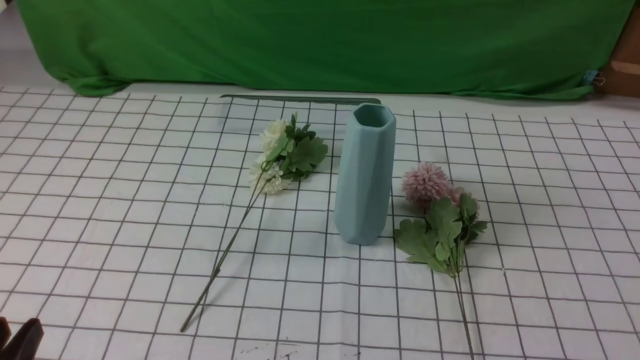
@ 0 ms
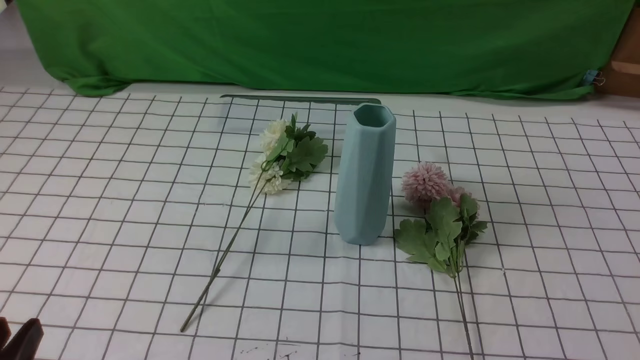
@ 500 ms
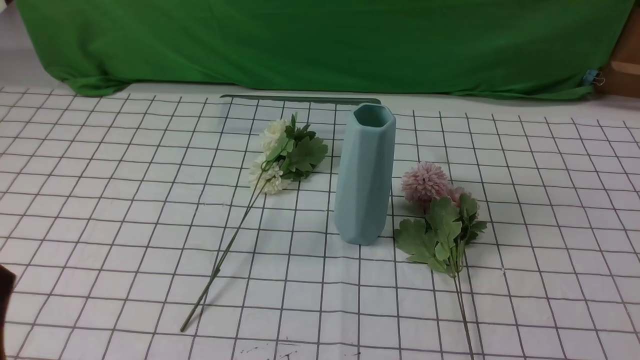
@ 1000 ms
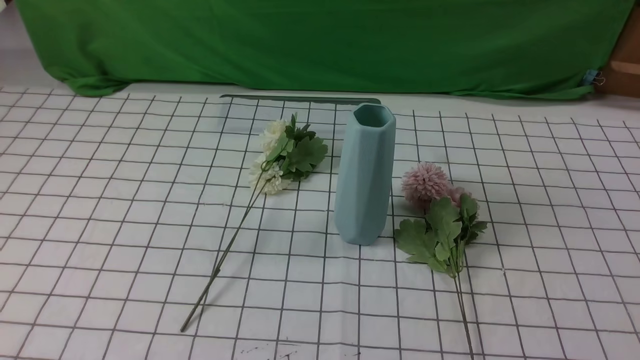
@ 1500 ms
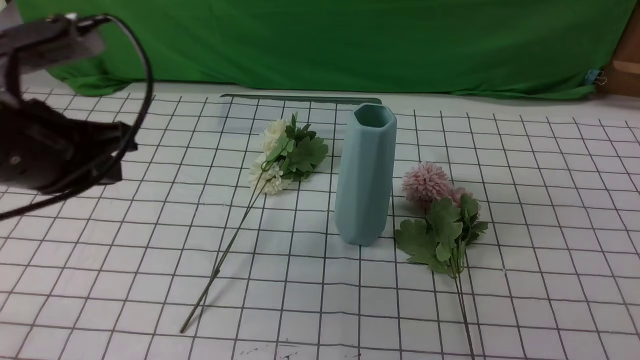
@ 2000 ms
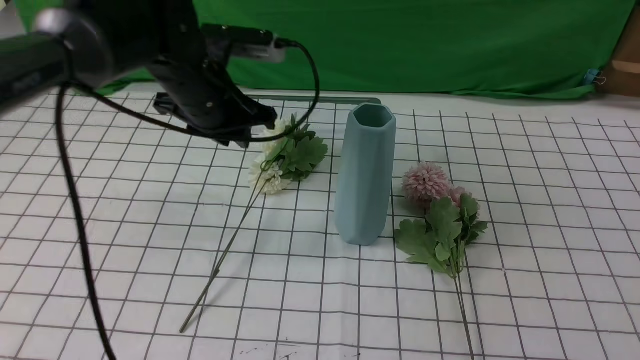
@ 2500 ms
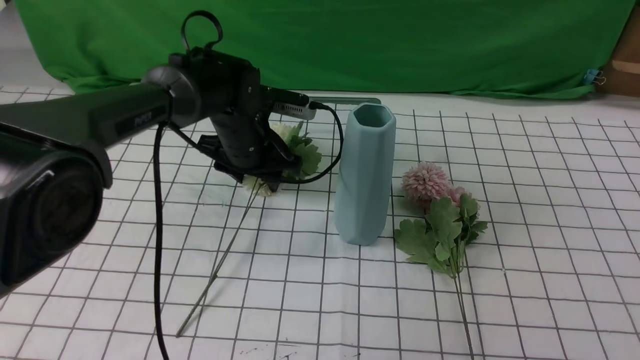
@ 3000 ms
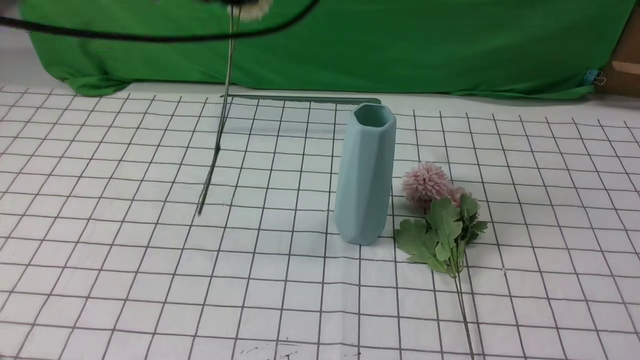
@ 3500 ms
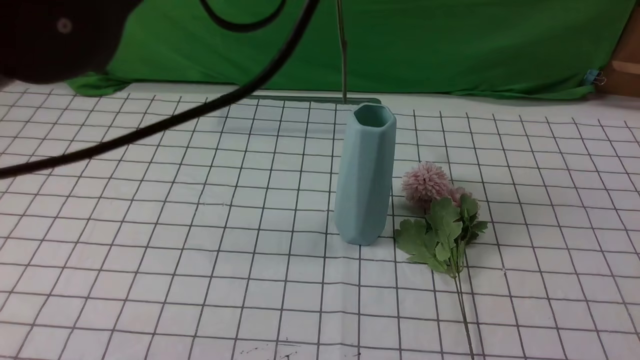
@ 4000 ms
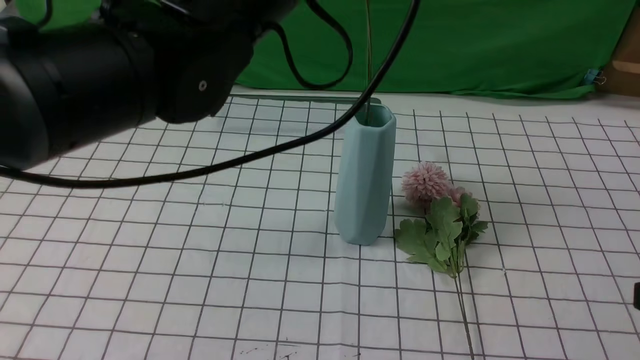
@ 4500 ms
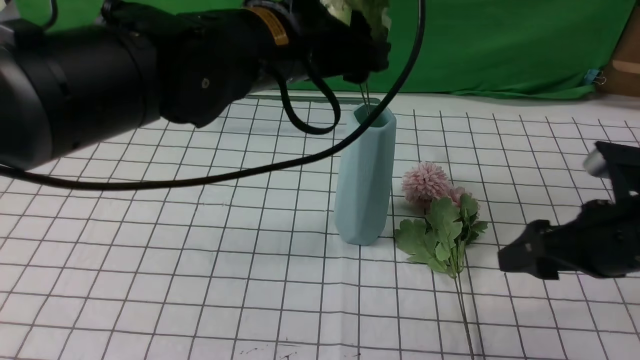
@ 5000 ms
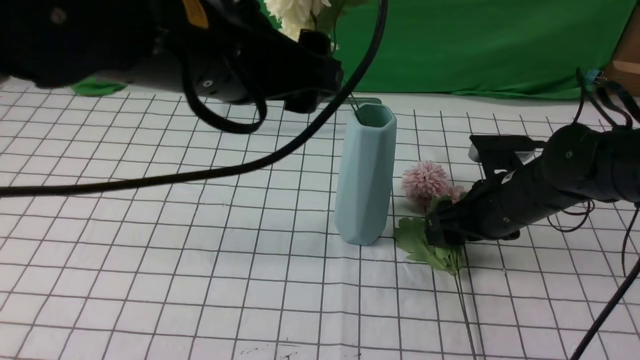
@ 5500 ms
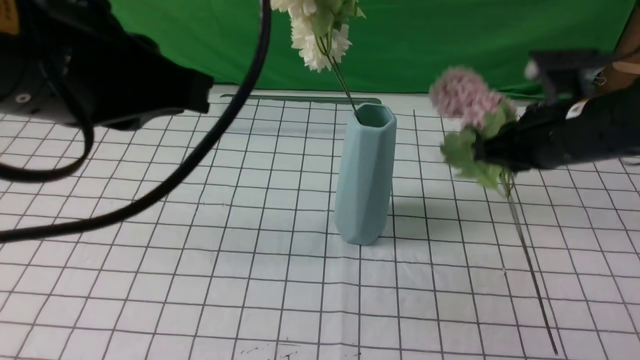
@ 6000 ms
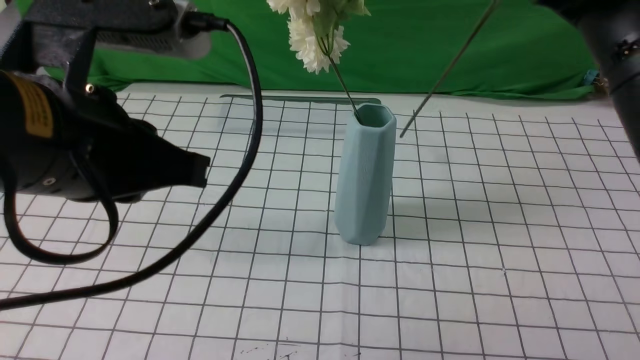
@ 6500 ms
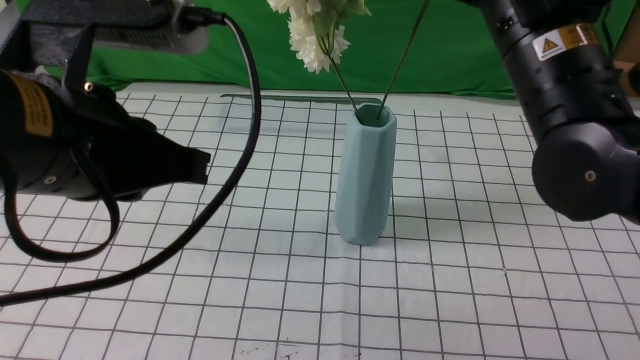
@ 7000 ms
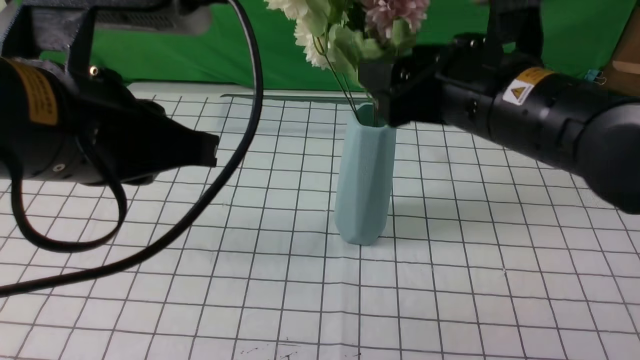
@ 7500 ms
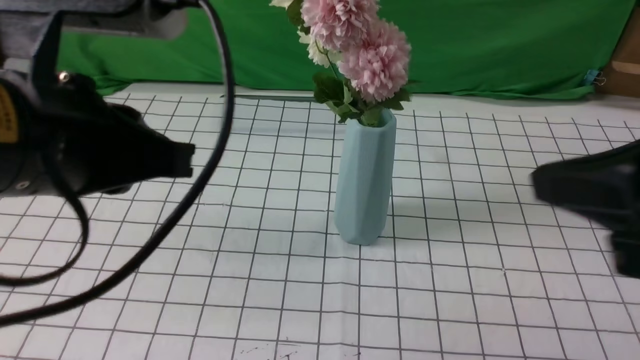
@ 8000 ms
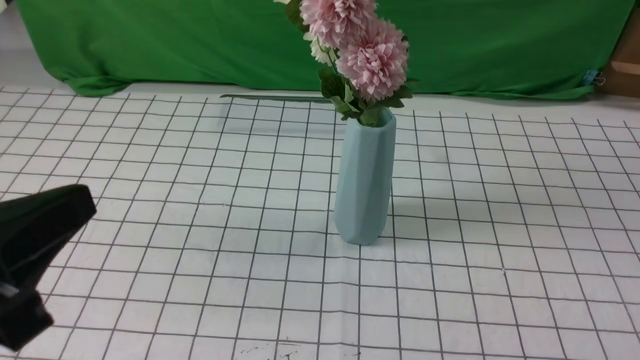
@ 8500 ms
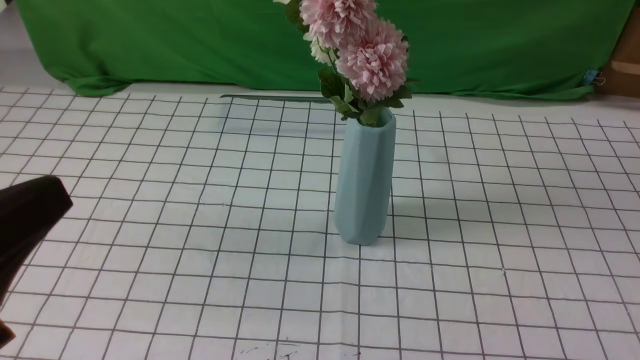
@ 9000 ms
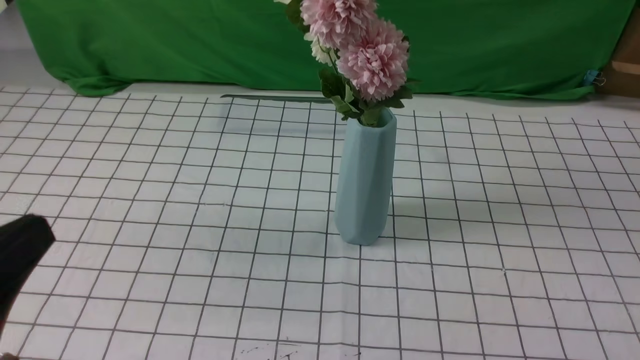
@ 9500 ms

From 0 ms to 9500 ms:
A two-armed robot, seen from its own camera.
Task of the whole recording: insert the flowers into the vase on the table with the white tablecloth.
Step, from 0 ms to 3000 ms: use the left arm to grab a bunch of fresh flowers.
Step, from 3500 ms to 5000 ms: use the left arm to insert the flowers into the vase.
Step, from 6000 ms to 7500 ms: use the right arm to insert the flowers into the vase.
From 0 ms to 2000 ms: The right gripper moves upward, roughly 5 cm, while the left gripper is displaced forward and upward by roughly 25 cm, and closes up.
From 2000 ms to 4000 ms: The left gripper moves to the right and upward, approximately 20 cm, and opens and closes again; the right gripper goes approximately 10 cm upward and forward, and opens.
From 4000 ms to 5500 ms: The left gripper moves downward, about 5 cm, and opens up, while the right gripper travels forward and downward by roughly 30 cm.
From 5500 ms to 7500 ms: The right gripper goes about 20 cm upward, backward and to the left, and closes, then reopens; the left gripper moves backward and to the left, roughly 10 cm, and closes its fingers.
From 7500 ms to 9500 ms: The right gripper shifts about 30 cm backward and to the right, and closes, while the left gripper is displaced backward, to the left and downward by about 20 cm.
